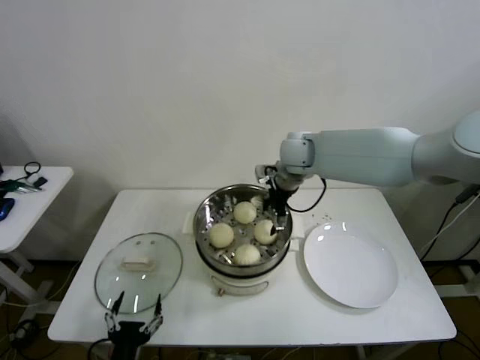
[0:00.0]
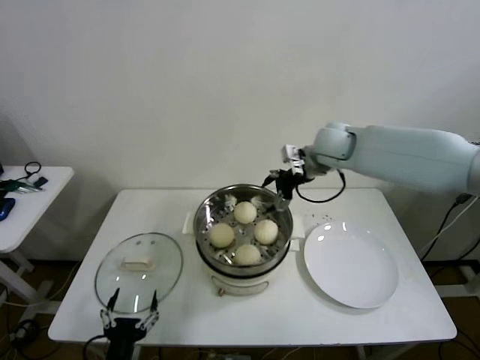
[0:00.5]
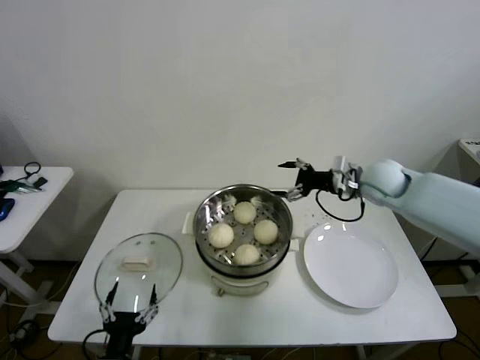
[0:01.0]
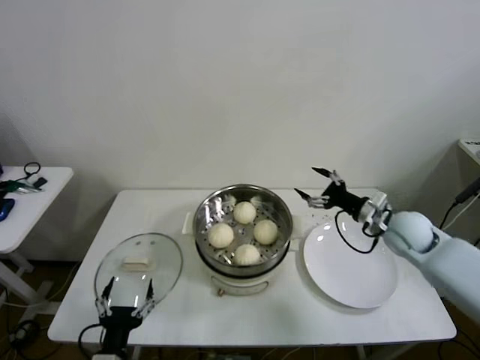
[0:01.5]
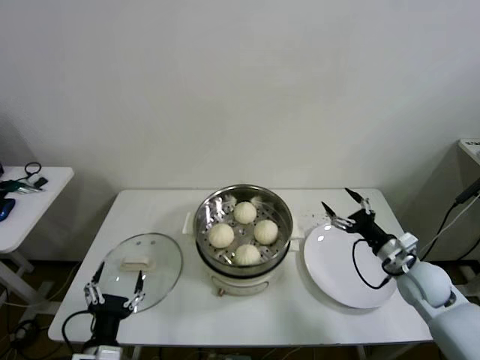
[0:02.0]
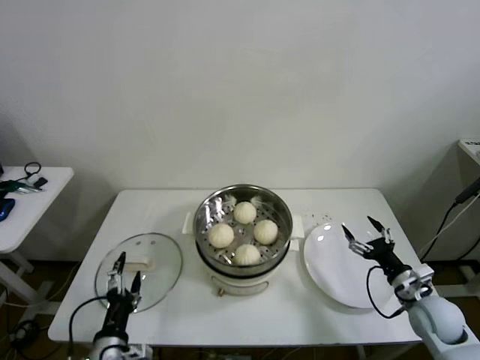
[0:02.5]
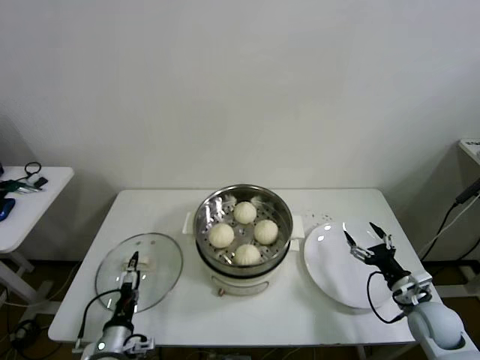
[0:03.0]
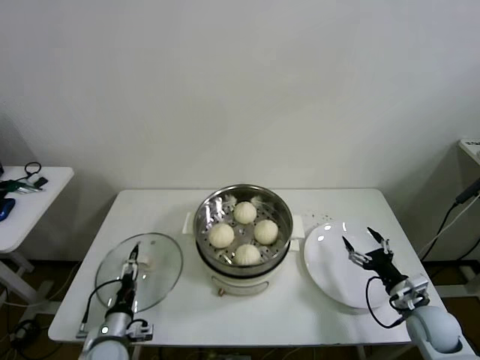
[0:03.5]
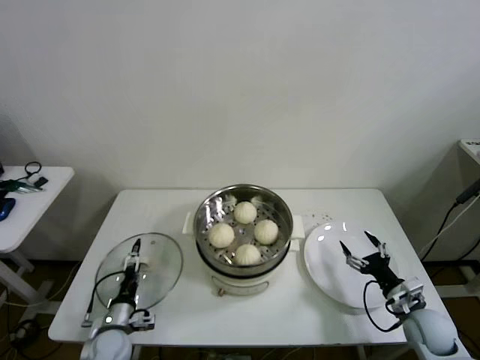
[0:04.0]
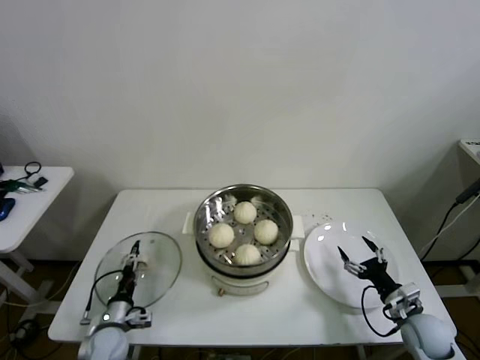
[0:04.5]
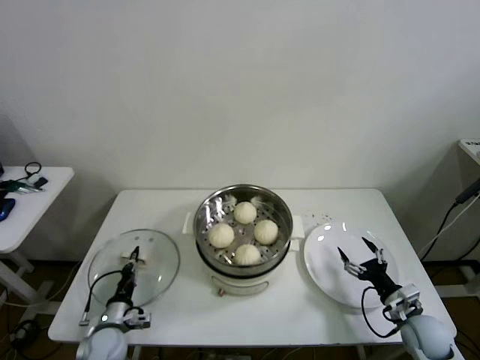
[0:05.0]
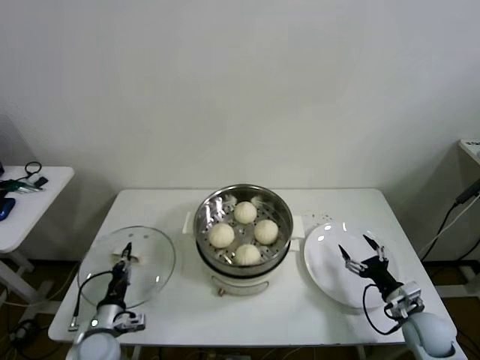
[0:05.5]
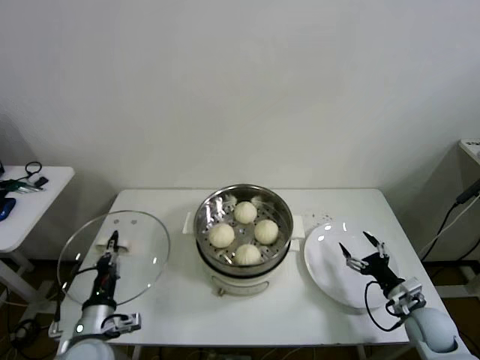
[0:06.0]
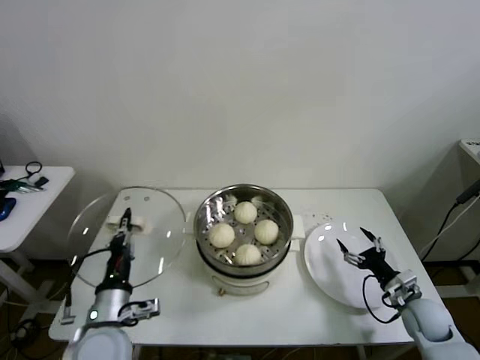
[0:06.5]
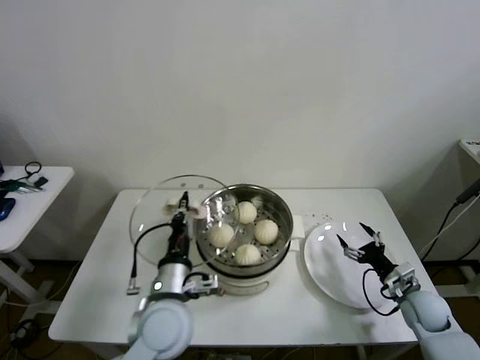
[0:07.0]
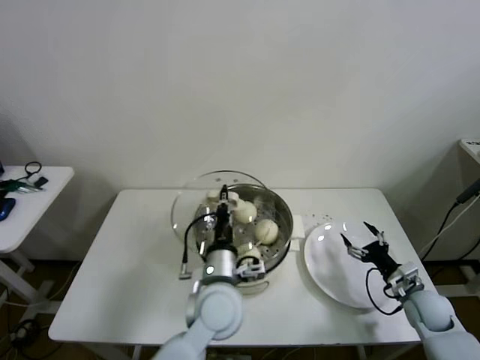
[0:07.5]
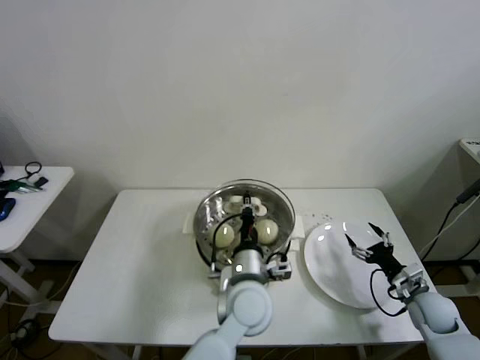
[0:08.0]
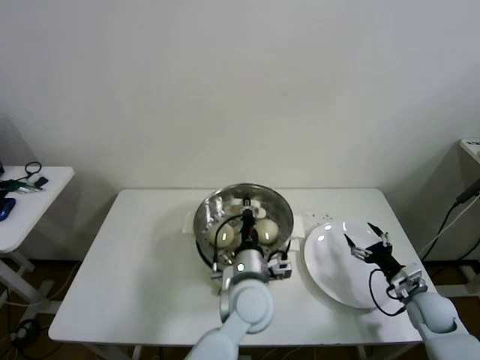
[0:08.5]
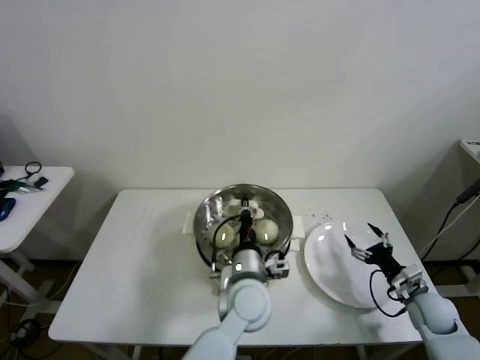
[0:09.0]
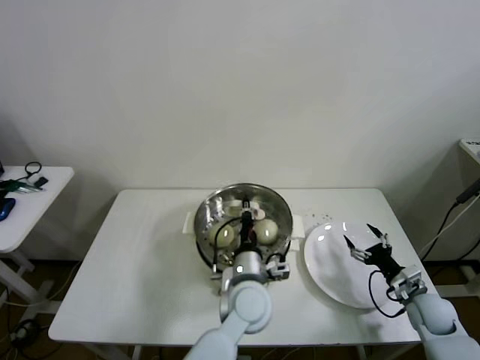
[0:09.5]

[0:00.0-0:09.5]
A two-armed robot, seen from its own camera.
Step, 0:00.0 to 0:04.5: Grasp the pot lid with left gripper.
0:00.0 to 0:02.0: The right gripper goes roughly 40 cm to the right, backward and downward. The left gripper shifts by some 5 cm.
0:02.0 to 0:04.0: The left gripper shifts approximately 20 cm forward, downward and to the left. Meanwhile the right gripper moves downward and backward, some 10 cm.
0:04.0 to 0:05.5: The left gripper closes its fingers.
0:05.5 to 0:07.5: The right gripper moves roughly 5 cm. The left gripper moves to the right and upward, some 35 cm.
0:07.5 to 0:09.5: The left gripper travels to the right by about 5 cm.

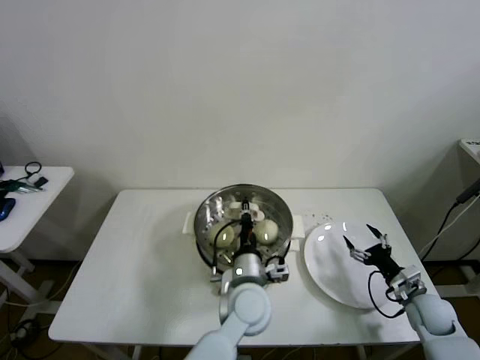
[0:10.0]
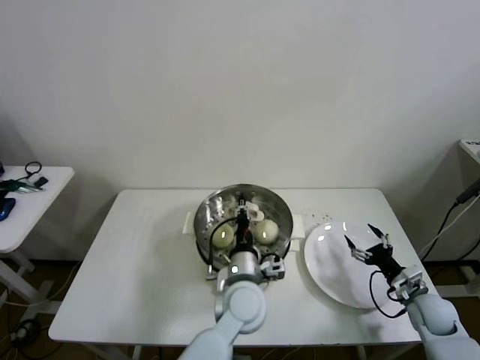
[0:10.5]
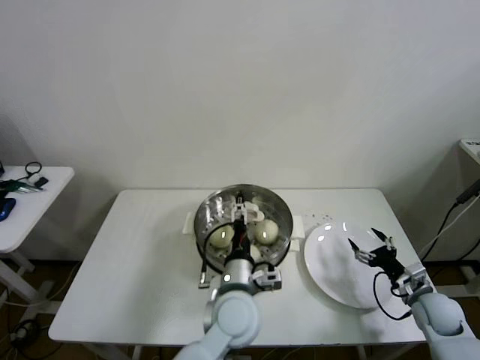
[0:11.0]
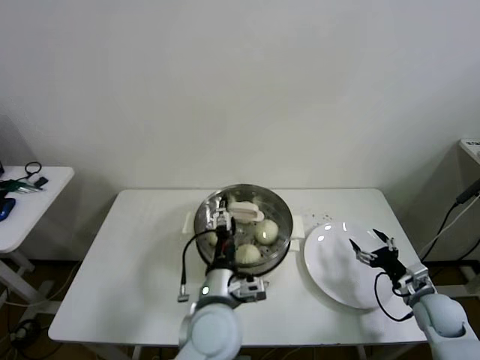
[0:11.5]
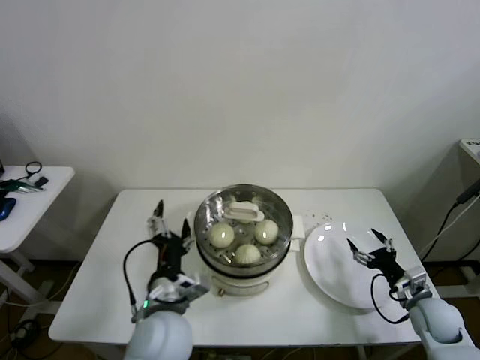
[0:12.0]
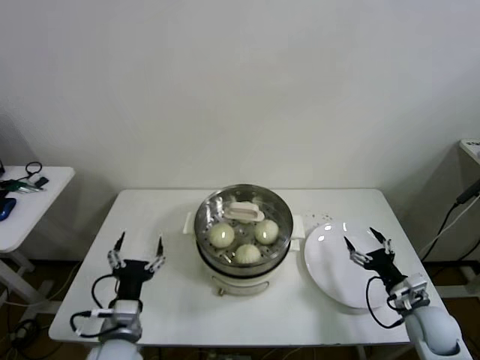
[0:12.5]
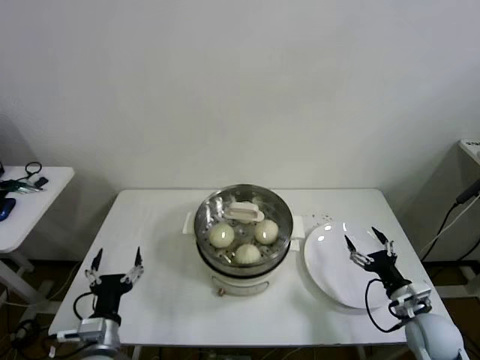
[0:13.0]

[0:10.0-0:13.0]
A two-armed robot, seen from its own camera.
0:10.0 to 0:11.5: The left gripper goes roughly 5 cm backward and to the left, and opens.
0:11.5 to 0:13.0: The left gripper travels to the left by some 25 cm. Meanwhile the right gripper changes place by approximately 5 cm.

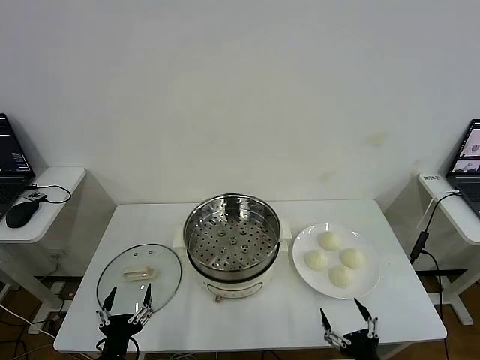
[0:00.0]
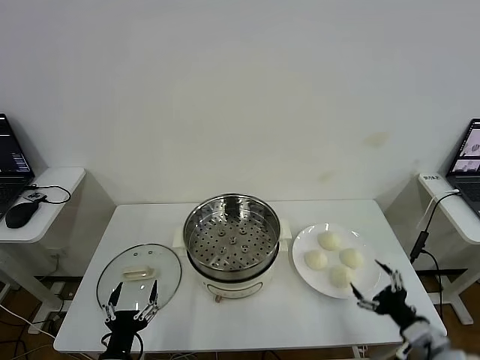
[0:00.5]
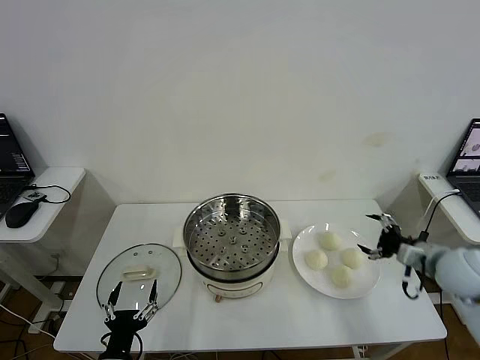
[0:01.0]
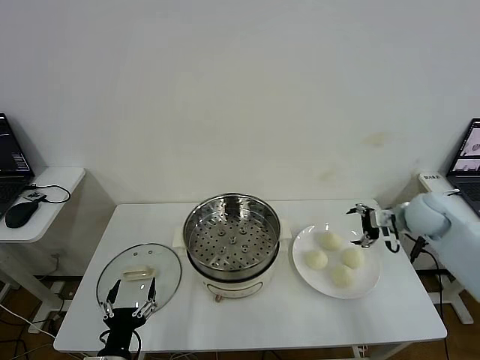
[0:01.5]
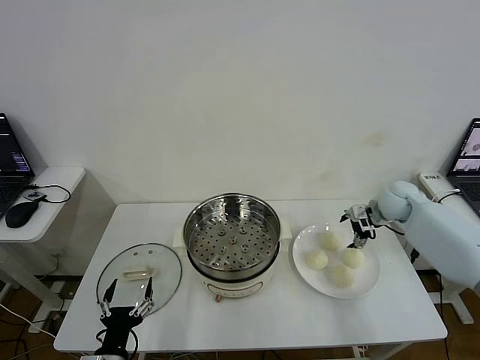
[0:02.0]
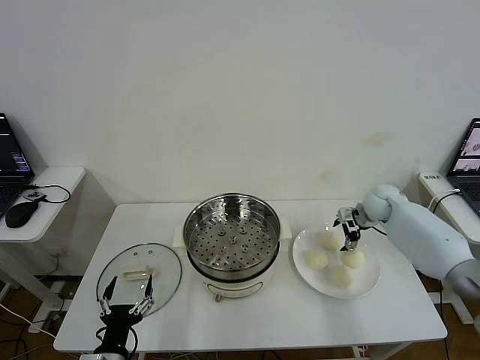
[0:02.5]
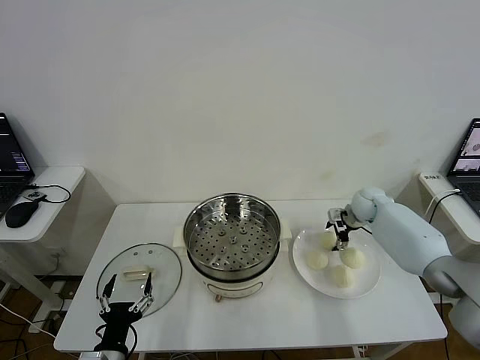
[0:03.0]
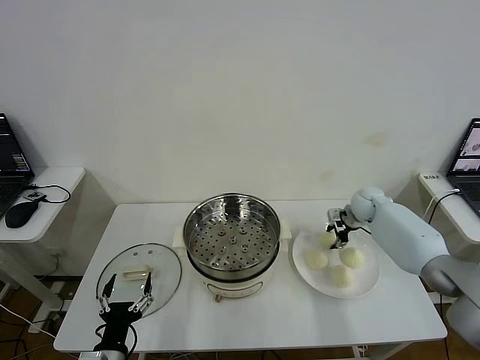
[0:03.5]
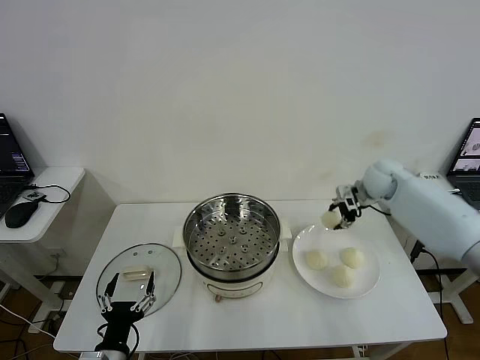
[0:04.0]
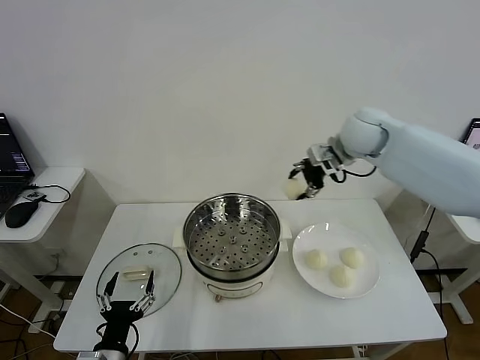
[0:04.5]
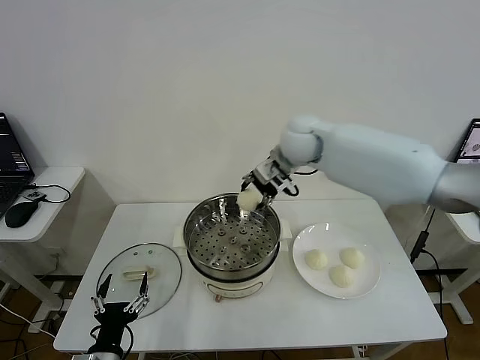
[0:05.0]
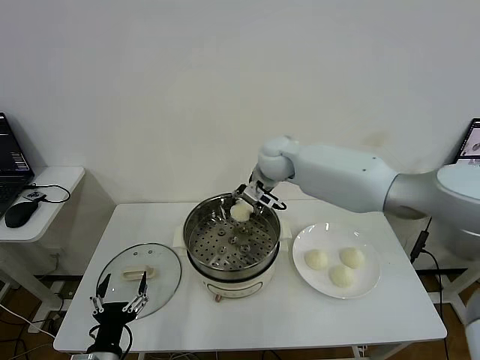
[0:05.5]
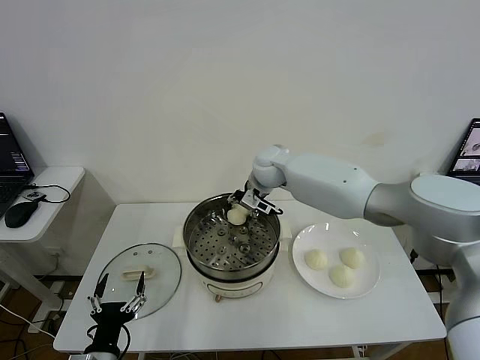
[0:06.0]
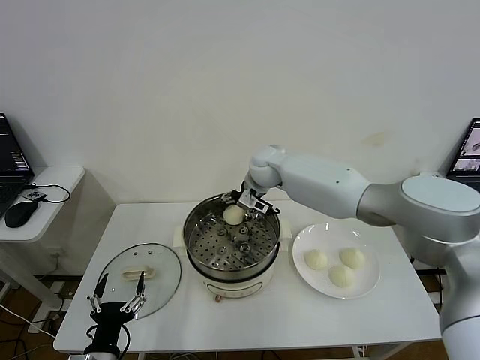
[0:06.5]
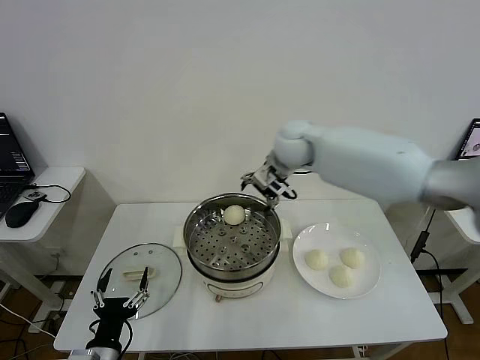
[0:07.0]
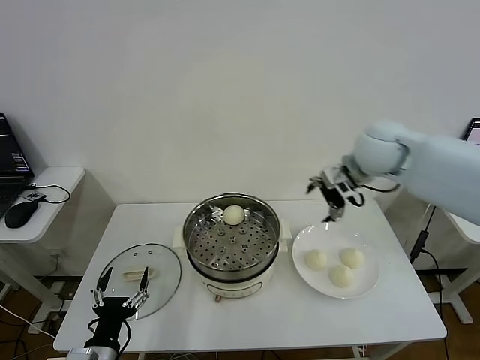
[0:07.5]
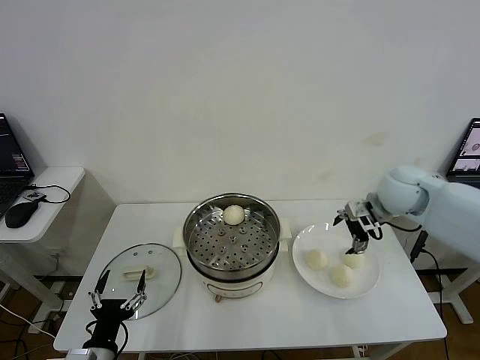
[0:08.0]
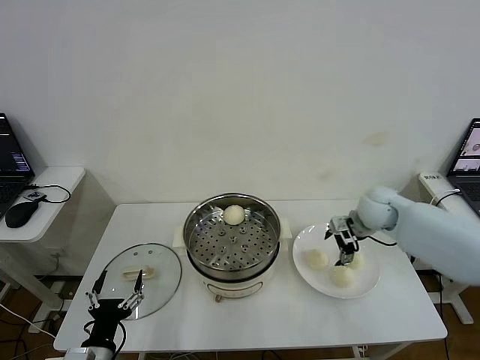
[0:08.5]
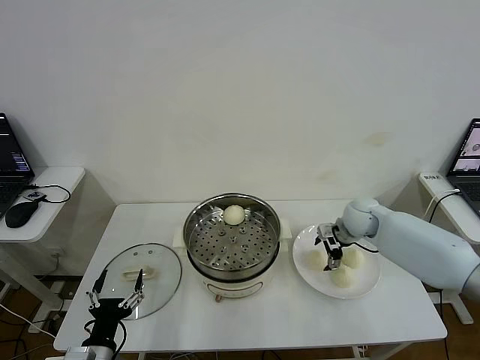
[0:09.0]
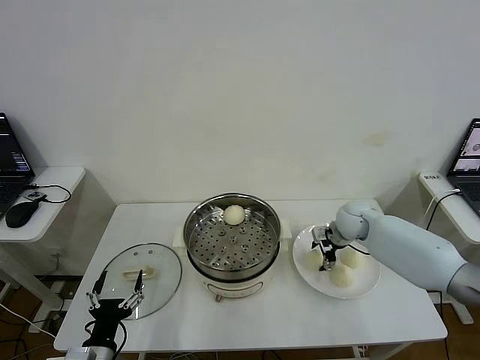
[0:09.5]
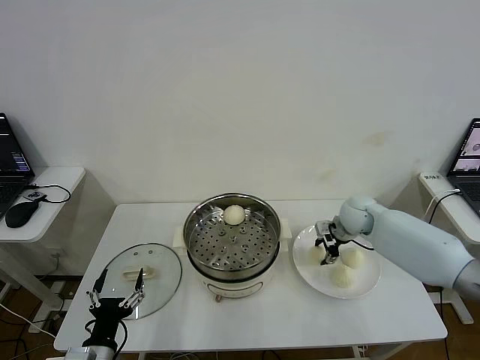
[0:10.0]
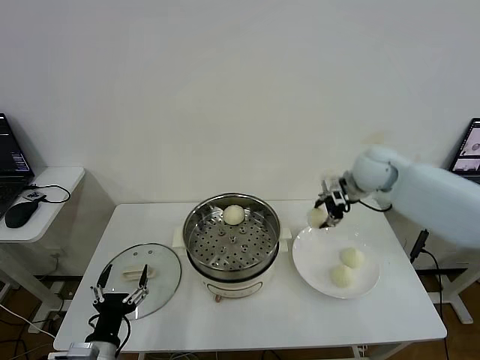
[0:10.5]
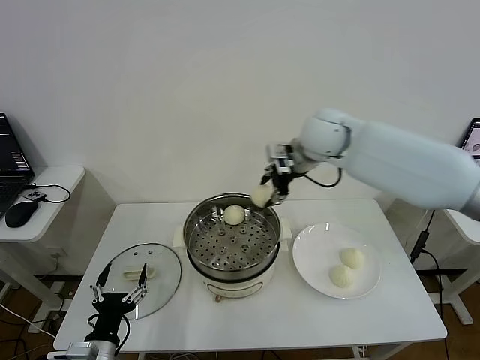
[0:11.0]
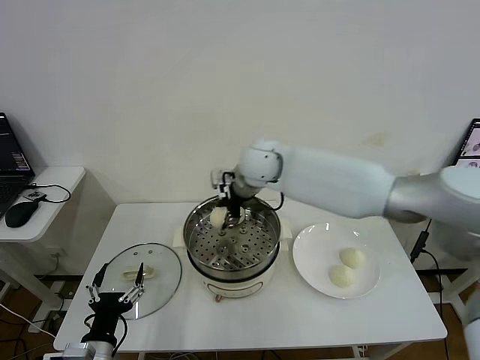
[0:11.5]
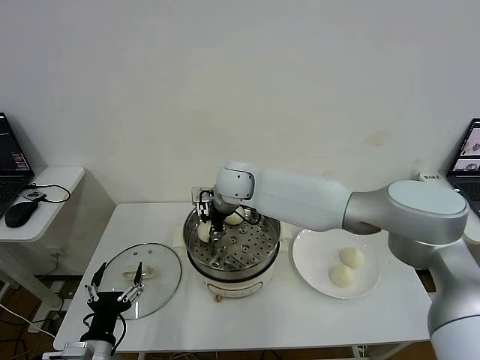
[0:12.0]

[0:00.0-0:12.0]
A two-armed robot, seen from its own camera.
Step, 0:00.0 to 0:03.0: Grasp the baozi in the plate with right gripper.
Step, 0:03.5 to 0:06.5: Place the baozi on the steamer with right gripper.
Step, 0:07.0 to 0:09.5: Grasp the baozi in the plate with right gripper.
0:02.0 to 0:04.0: The right gripper moves upward, approximately 10 cm, and closes up.
0:04.0 to 0:06.0: The right gripper shifts some 25 cm to the left.
0:06.0 to 0:08.0: The right gripper heads to the right and backward, covering roughly 30 cm, and opens up.
0:08.0 to 0:10.0: The right gripper travels downward by roughly 10 cm, and closes its fingers.
0:10.0 to 0:12.0: The right gripper goes about 30 cm to the left.

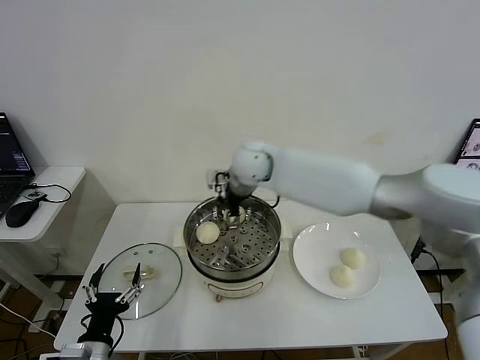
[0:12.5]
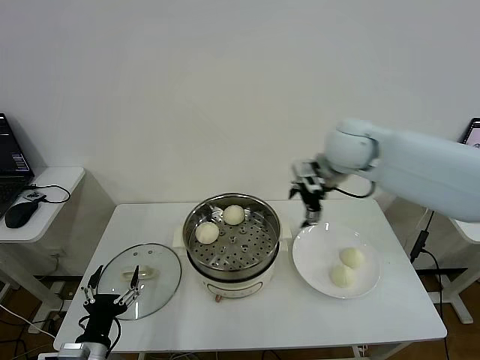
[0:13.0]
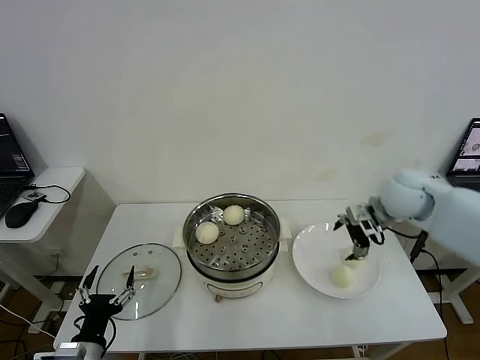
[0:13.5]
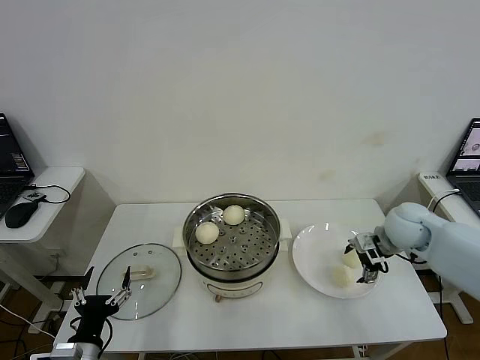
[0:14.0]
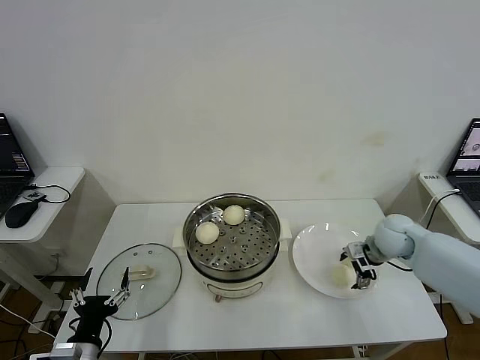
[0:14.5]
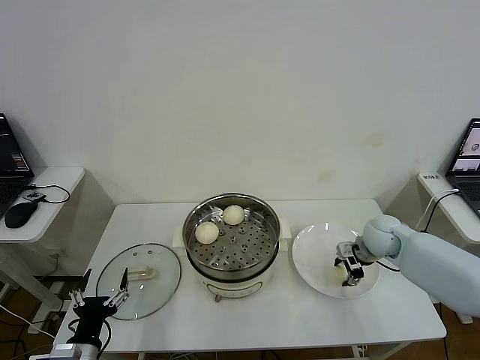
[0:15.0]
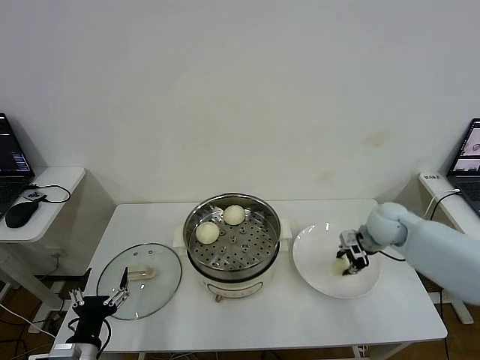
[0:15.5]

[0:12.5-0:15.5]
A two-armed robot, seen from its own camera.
Step, 0:12.5 to 0:15.0: Grasp the baozi in the plate with right gripper.
0:12.5 to 0:14.0: The right gripper goes about 35 cm to the right and downward.
0:14.0 to 0:15.5: The right gripper closes up.
